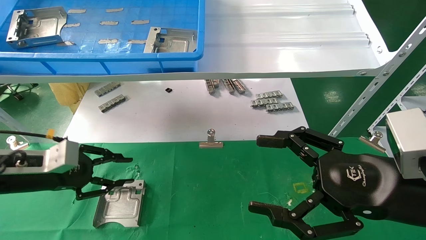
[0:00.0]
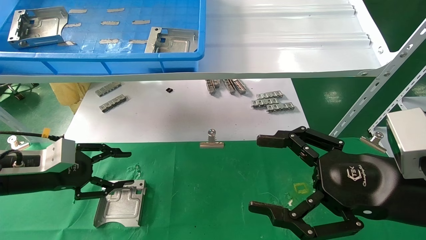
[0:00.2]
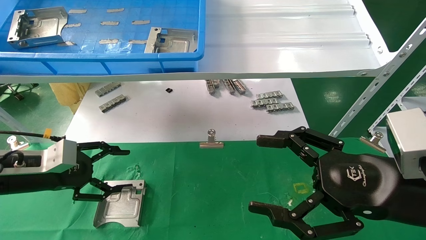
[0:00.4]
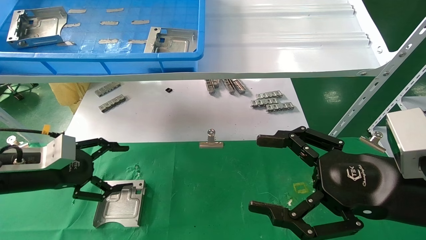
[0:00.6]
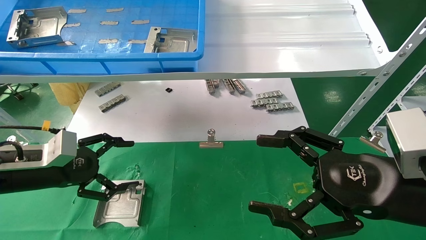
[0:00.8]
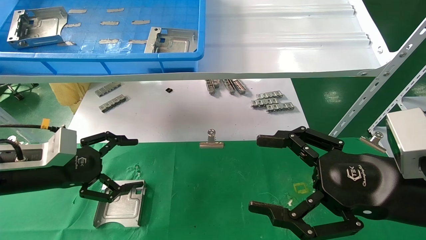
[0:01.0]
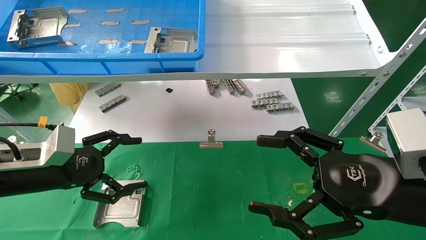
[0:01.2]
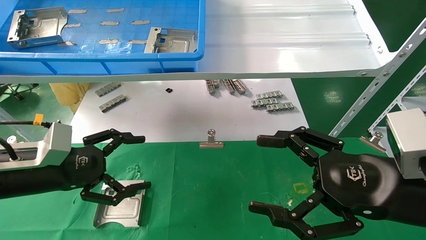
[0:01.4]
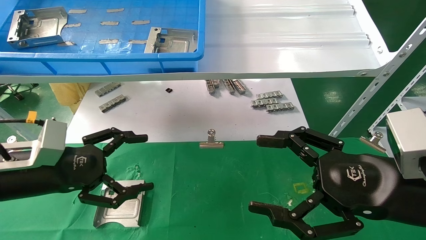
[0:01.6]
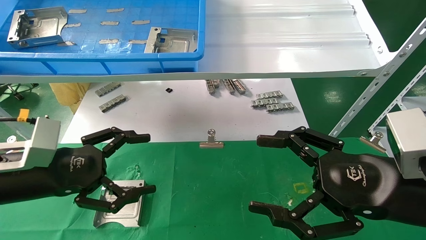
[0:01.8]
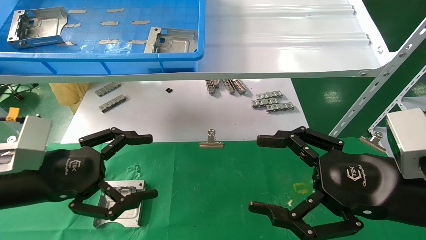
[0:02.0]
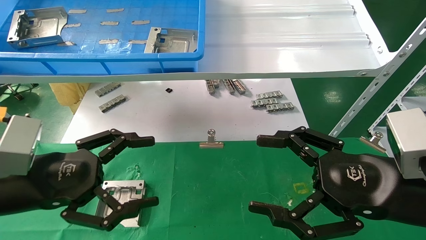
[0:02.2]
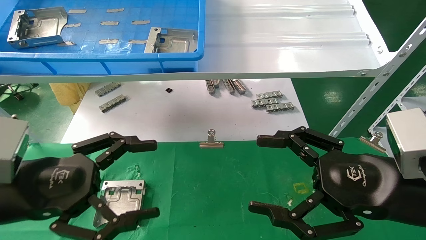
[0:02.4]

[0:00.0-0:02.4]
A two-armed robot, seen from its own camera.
Task of the whole recording: use the mechanical arm to pick up the parts and place them on the table.
0:00.0 to 0:01.2: The left gripper opens.
0:01.2 to 0:02.4: The left gripper travels backward by roughly 10 cm.
